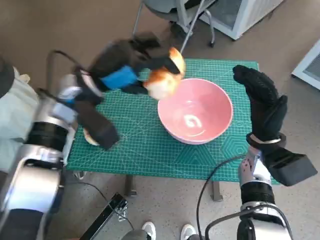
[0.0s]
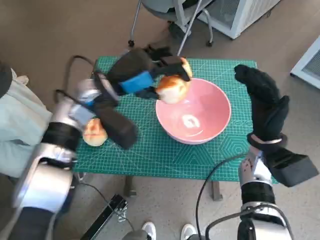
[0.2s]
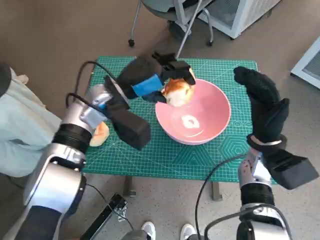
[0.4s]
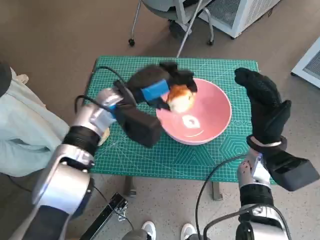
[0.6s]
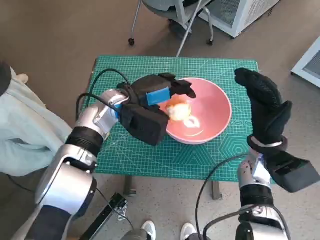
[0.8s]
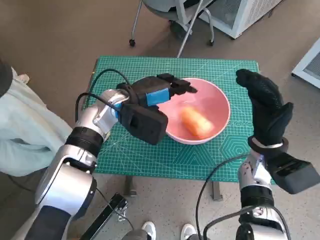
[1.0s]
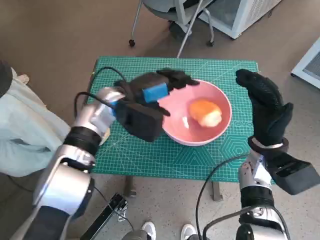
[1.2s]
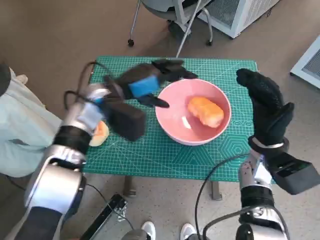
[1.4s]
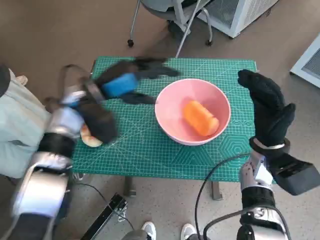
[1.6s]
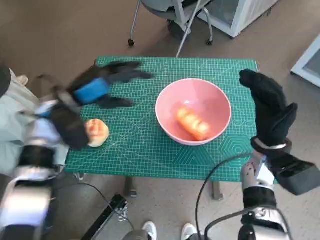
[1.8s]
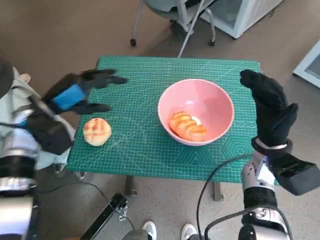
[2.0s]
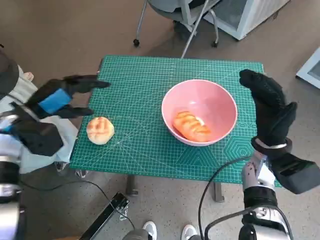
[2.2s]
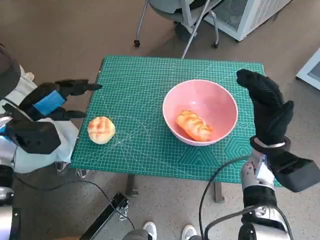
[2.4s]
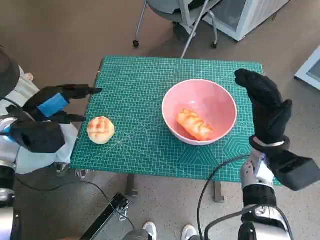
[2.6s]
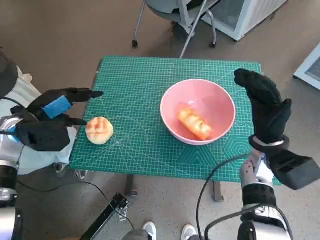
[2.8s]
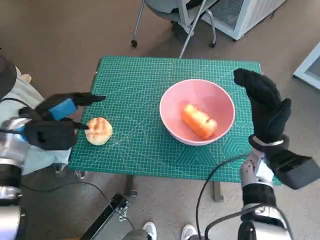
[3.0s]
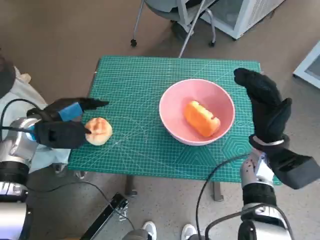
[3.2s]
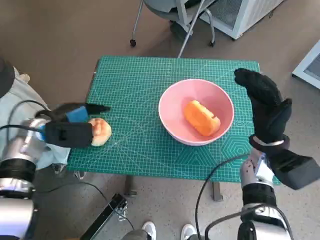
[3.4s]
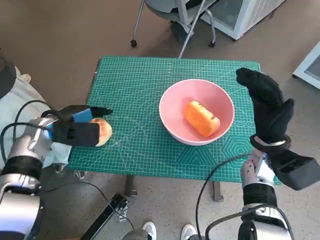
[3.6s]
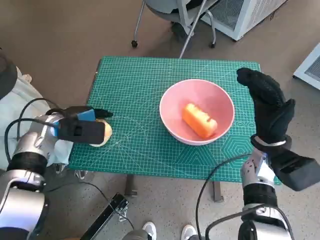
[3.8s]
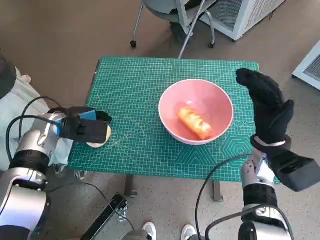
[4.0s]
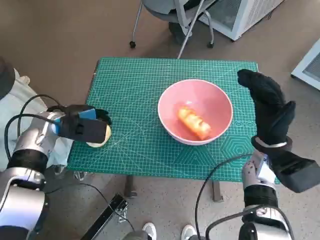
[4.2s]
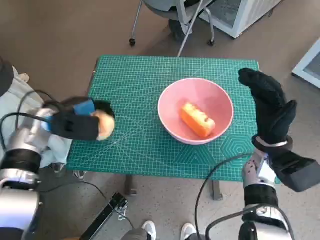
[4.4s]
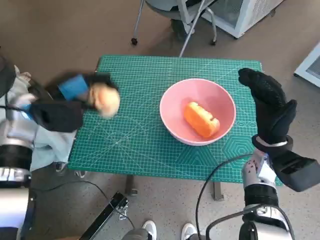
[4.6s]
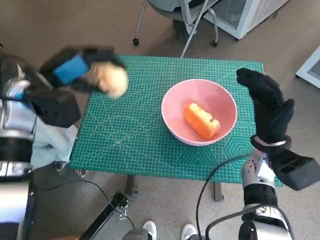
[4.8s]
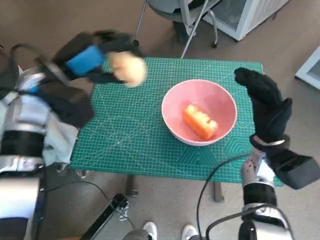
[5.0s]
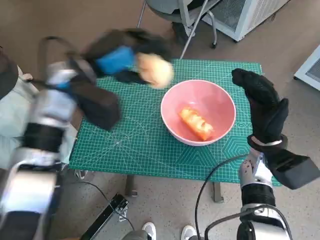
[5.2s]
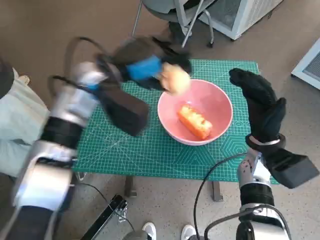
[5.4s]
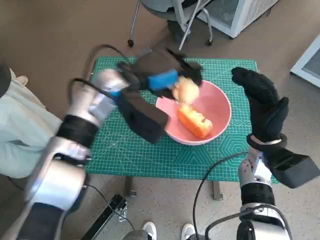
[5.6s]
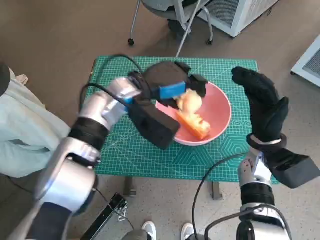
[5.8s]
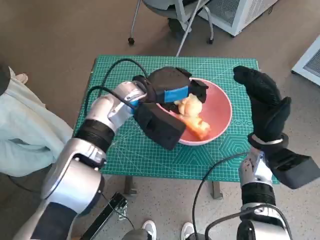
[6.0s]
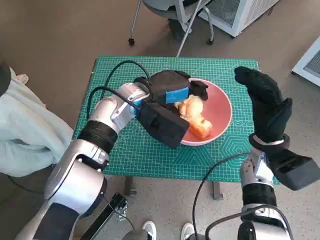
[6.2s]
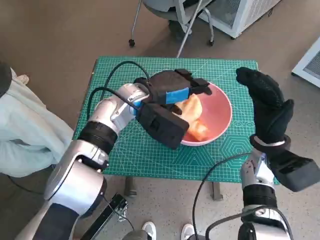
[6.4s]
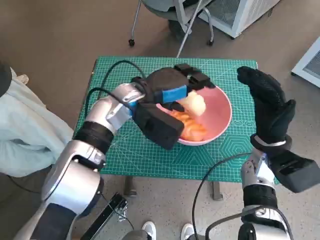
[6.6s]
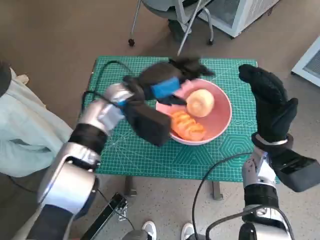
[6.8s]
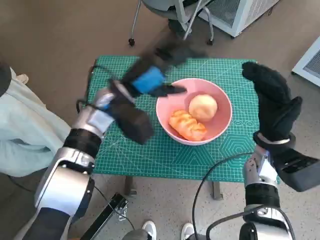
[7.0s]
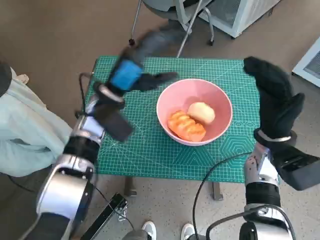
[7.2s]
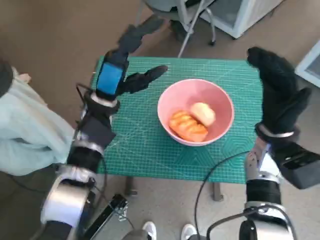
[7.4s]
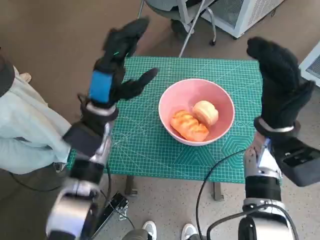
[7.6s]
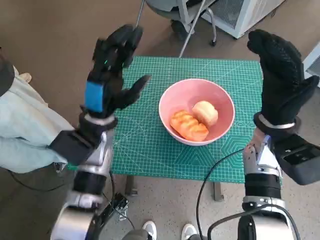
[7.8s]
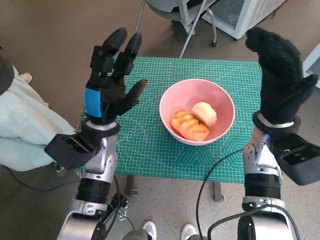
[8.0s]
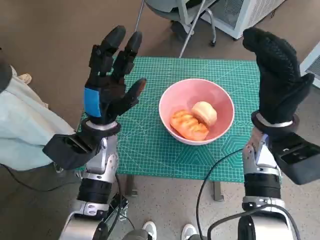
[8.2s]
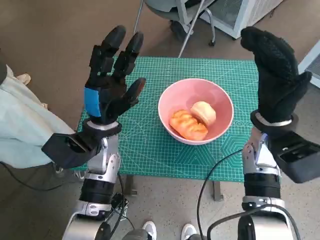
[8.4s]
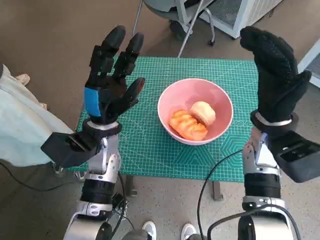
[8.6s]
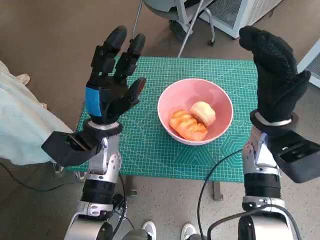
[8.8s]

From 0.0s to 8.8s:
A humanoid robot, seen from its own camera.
Task of the whole recording: Push the bowl to the center of the table and put the bread into the bowl.
Step, from 1.0s to 4.0s: Grasp the round bread with left hand.
Step, from 4.2s to 6.4s: Place the round bread in pink bowl with left hand.
From 0.0s to 1.4s: The left hand changes place by roughly 5 cm.
From 1.4s to 3.0s: The left hand goes some 15 cm to the left.
From 4.4s to 5.8s: The left hand moves to the right, approximately 15 cm.
From 5.8s to 7.4s: The left hand shifts roughly 5 cm to the left.
From 7.4s to 8.8s: The left hand moves approximately 5 cm.

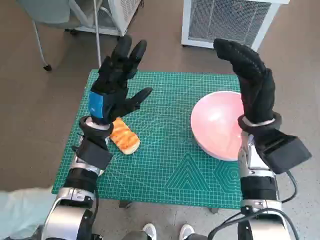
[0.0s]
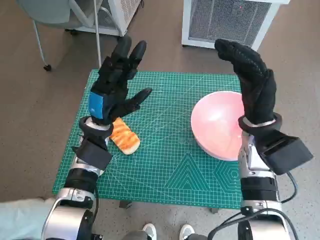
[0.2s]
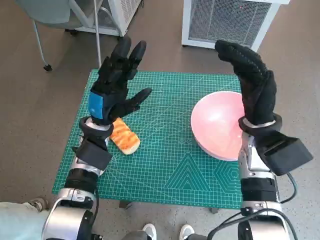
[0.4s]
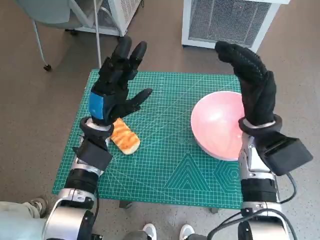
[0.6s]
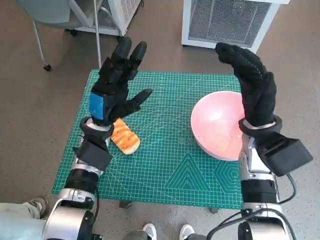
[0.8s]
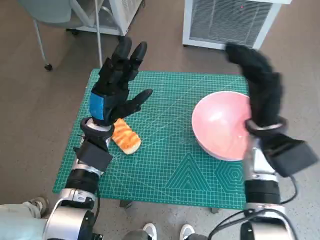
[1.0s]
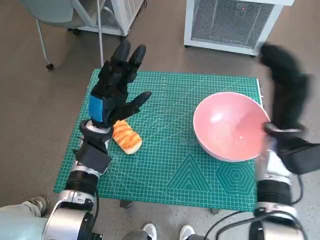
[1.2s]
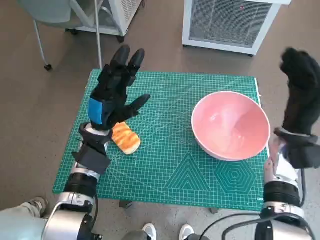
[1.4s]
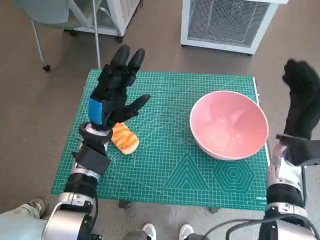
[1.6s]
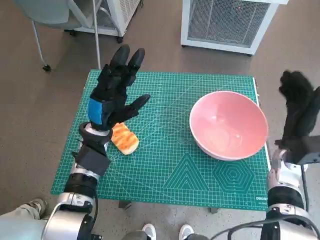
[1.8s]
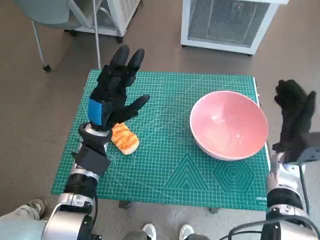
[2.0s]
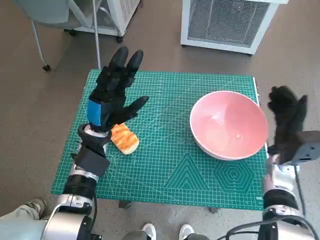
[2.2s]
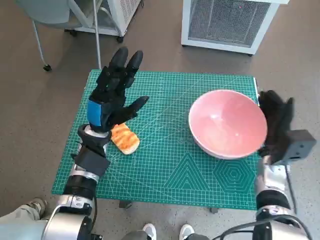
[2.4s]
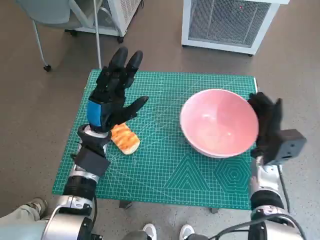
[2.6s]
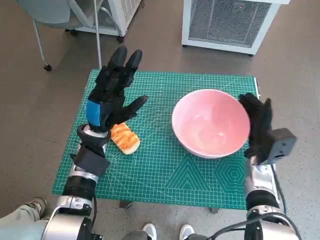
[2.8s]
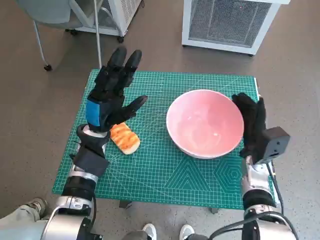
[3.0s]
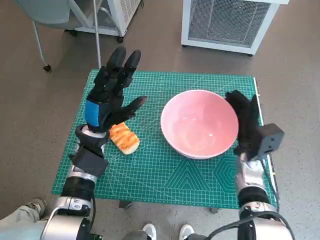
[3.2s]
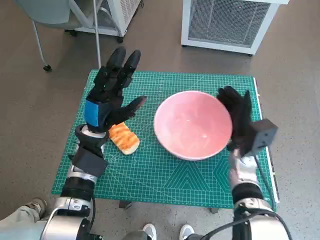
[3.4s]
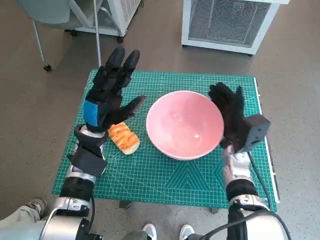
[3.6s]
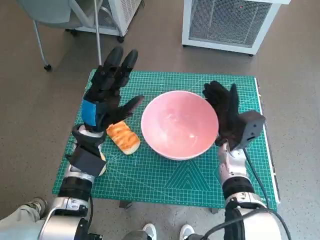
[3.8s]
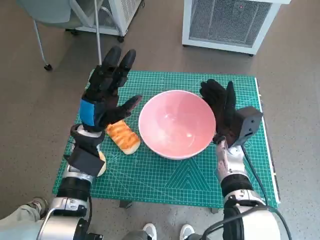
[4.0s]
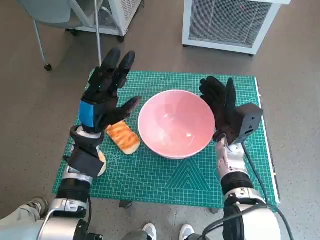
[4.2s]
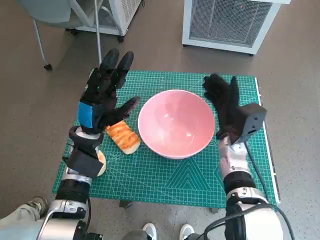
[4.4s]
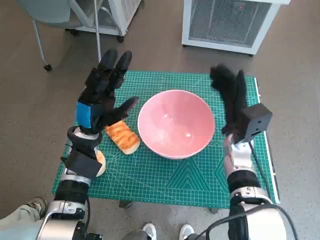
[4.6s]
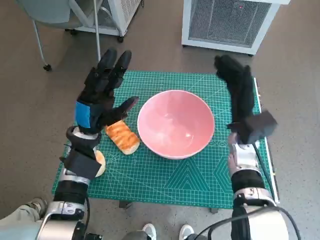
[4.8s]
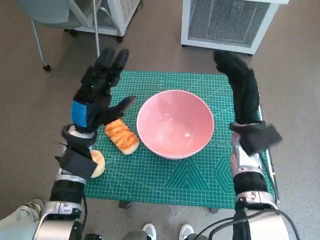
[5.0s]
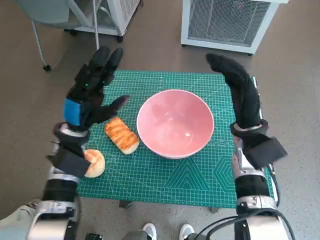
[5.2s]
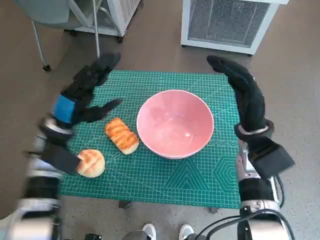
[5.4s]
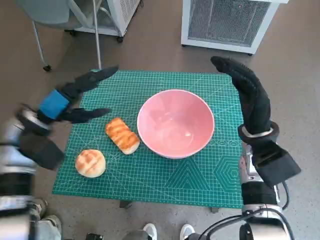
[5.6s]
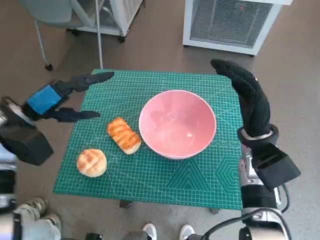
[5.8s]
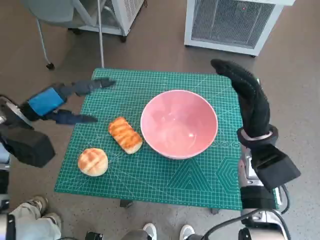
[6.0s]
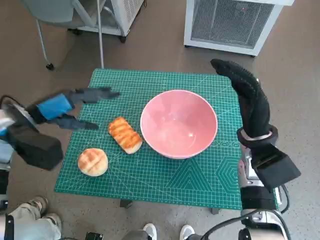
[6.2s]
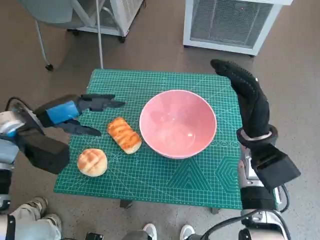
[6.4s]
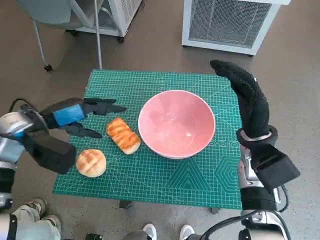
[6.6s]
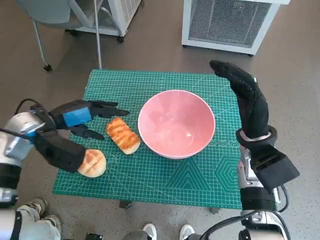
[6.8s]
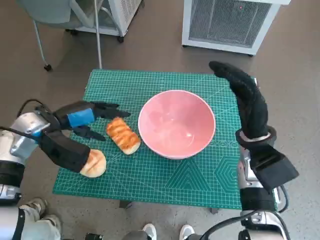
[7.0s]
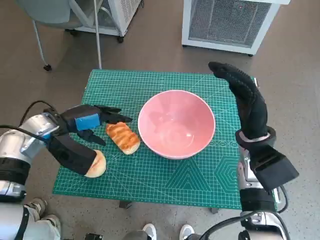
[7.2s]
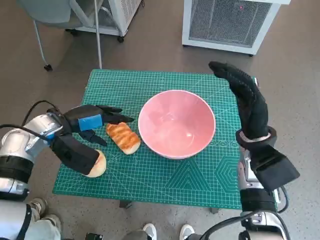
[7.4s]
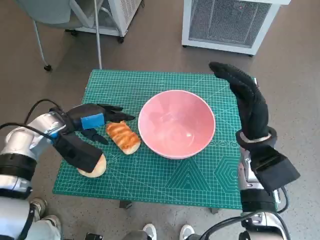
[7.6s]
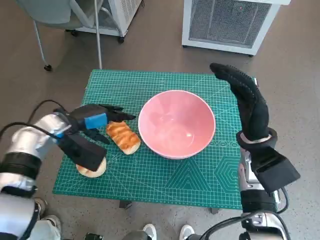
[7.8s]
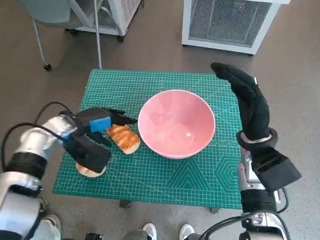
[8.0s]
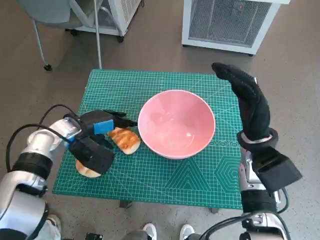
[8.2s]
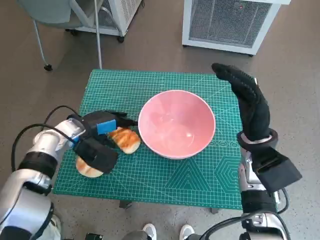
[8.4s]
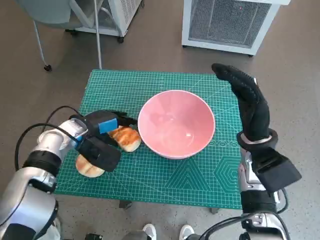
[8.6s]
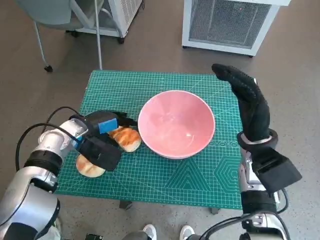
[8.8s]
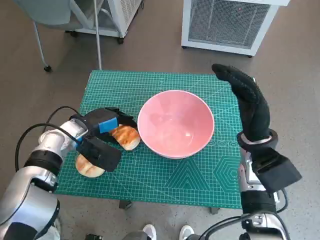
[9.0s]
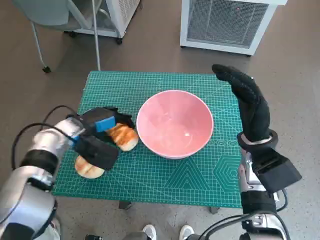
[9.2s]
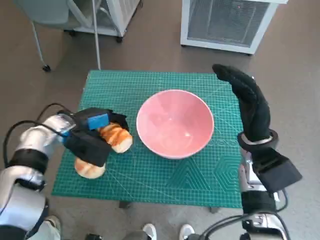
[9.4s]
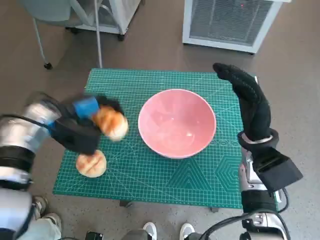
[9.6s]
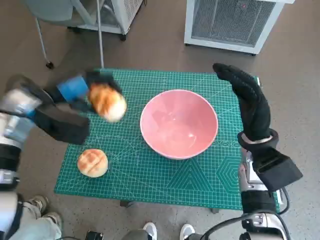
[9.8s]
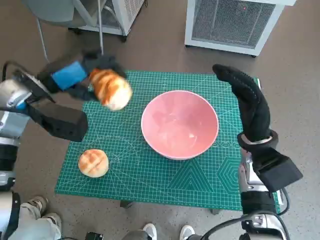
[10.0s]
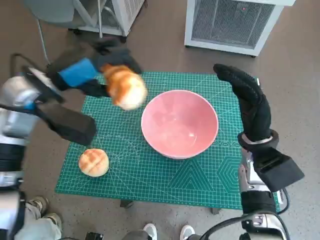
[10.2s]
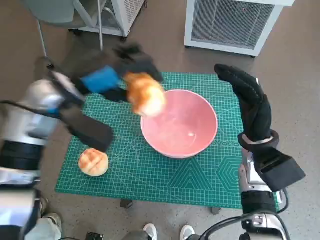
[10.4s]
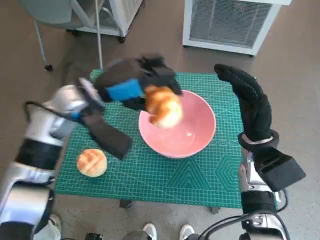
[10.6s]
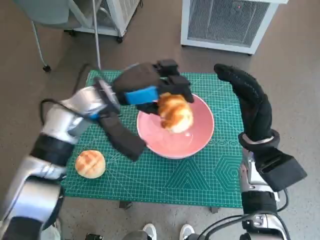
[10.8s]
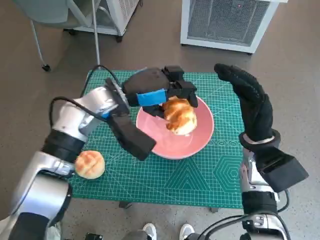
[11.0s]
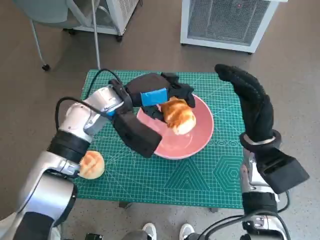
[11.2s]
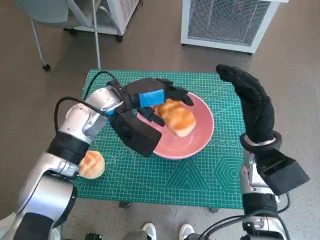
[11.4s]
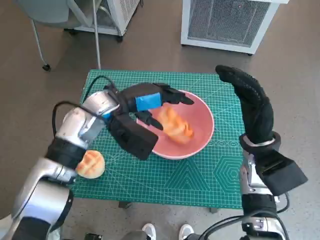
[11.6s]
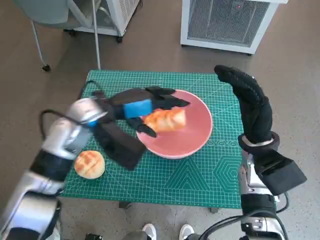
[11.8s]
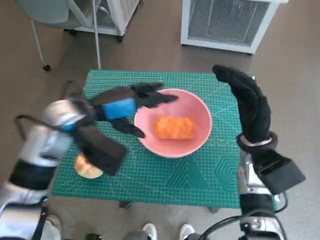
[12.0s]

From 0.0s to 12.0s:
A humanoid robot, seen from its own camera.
Task of the whole recording: Push the bowl to the center of the table and put the bread into the bowl.
Step, from 0.0s to 4.4s: Move the pink bowl to the center of table with right hand.
Step, from 4.8s to 8.6s: Grasp the long bread with left hand.
Step, from 8.8s to 11.8s: Place the long bread in pink bowl with left hand.
From 1.6s to 3.0s: The right hand moves downward, some 5 cm.
From 3.0s to 4.4s: The right hand goes approximately 5 cm to the left.
From 4.4s to 6.0s: The right hand moves upward, some 5 cm; the left hand travels to the left and upward by about 15 cm.
From 6.0s to 7.6s: The left hand heads downward, covering some 5 cm.
From 7.6s to 9.0s: The left hand ends up roughly 5 cm from where it was.
From 9.0s to 10.4s: The left hand heads upward, covering approximately 15 cm.

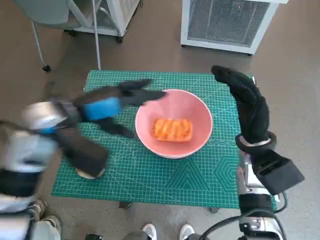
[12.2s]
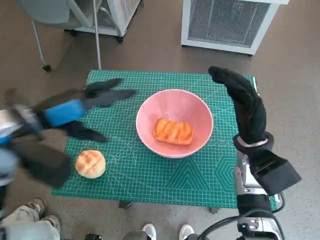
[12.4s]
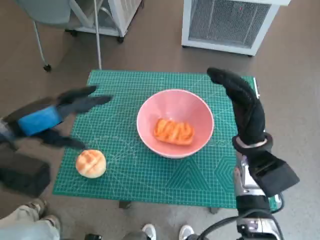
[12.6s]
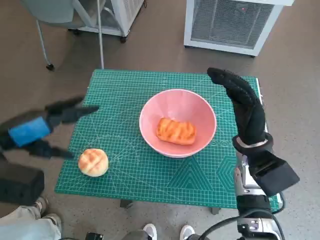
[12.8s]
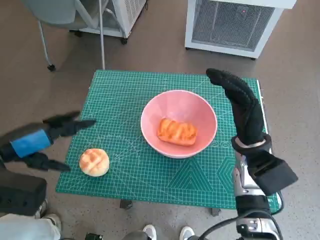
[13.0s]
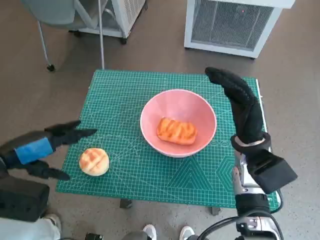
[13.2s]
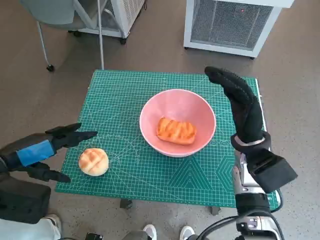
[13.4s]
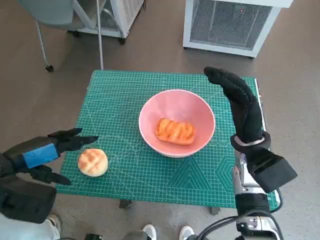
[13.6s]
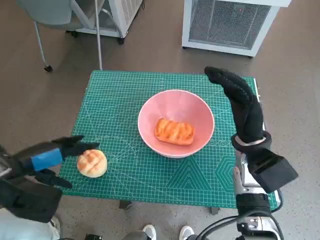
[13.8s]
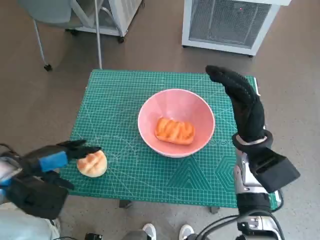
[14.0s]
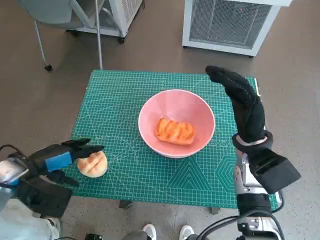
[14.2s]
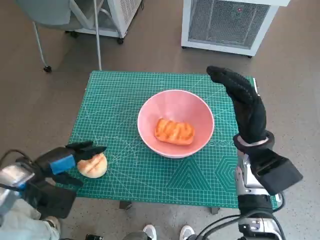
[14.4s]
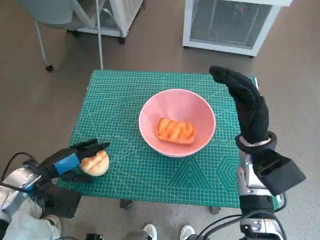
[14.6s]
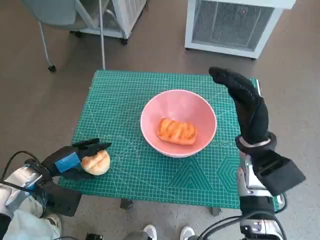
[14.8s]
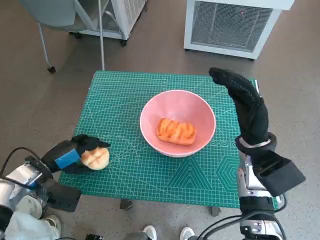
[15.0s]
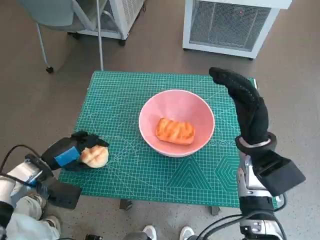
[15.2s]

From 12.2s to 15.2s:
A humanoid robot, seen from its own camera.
Task of the whole recording: Push the bowl to the center of the table and put the bread into the bowl.
Step, from 12.2s to 14.8s: Grasp the round bread with left hand.
From 12.2s to 13.8s: The left hand shifts about 15 cm to the left and backward.
From 13.8s to 15.2s: The left hand goes some 10 cm downward.
